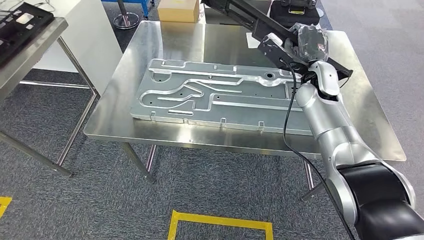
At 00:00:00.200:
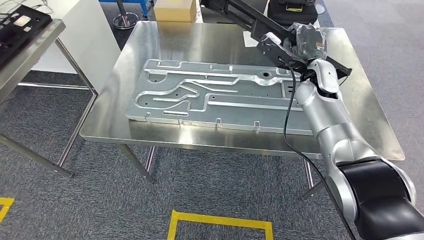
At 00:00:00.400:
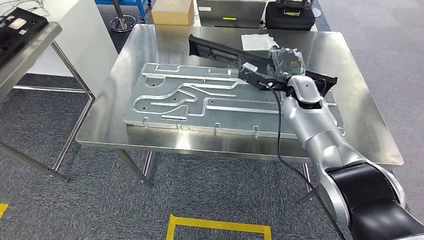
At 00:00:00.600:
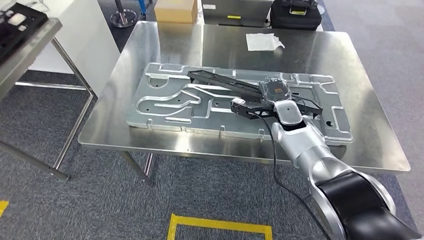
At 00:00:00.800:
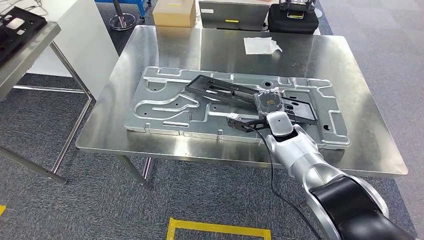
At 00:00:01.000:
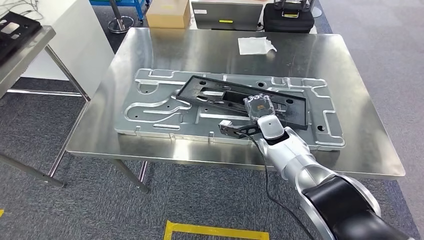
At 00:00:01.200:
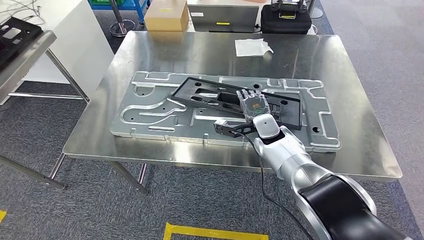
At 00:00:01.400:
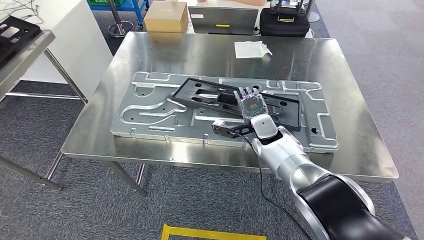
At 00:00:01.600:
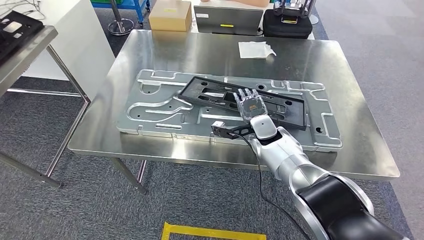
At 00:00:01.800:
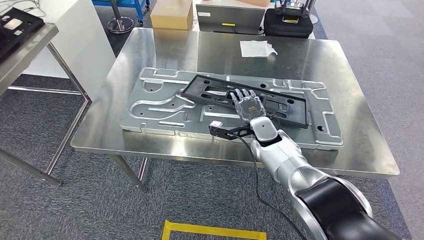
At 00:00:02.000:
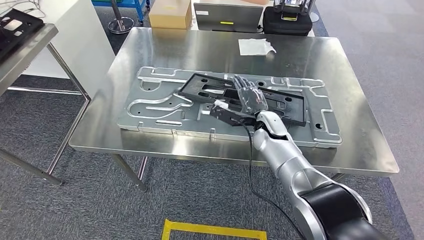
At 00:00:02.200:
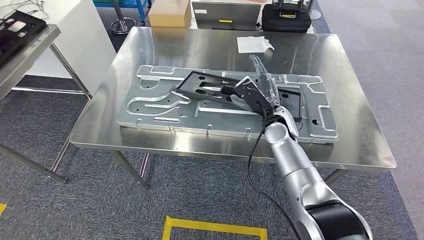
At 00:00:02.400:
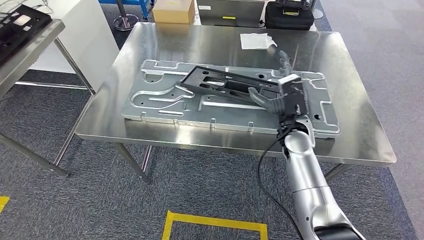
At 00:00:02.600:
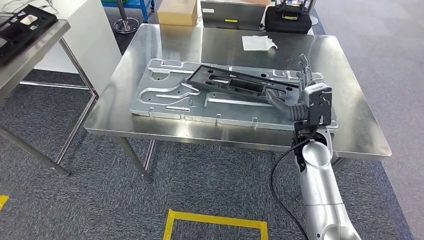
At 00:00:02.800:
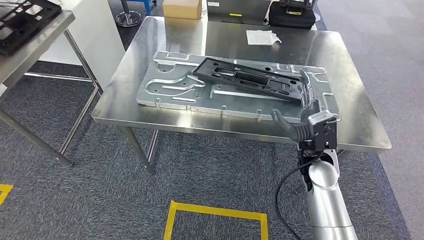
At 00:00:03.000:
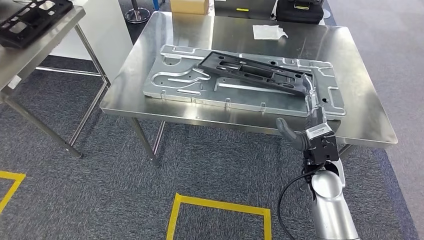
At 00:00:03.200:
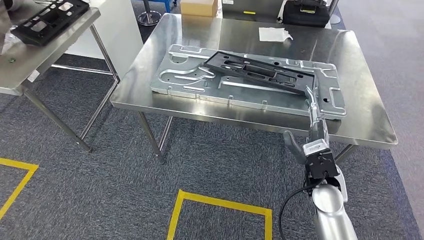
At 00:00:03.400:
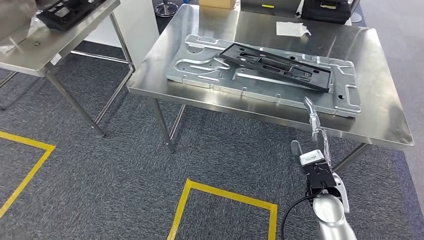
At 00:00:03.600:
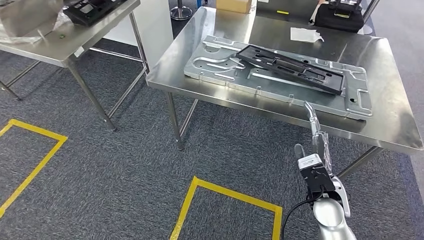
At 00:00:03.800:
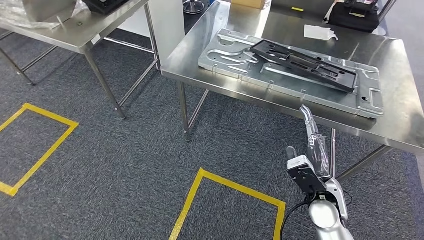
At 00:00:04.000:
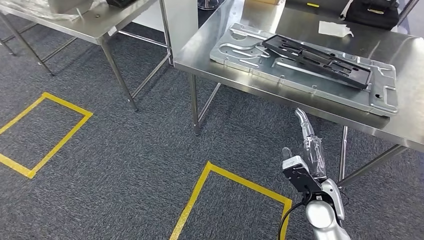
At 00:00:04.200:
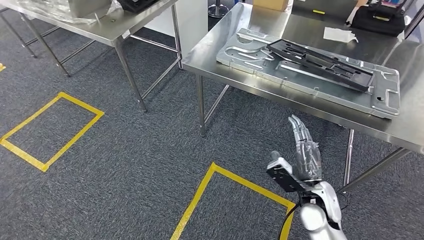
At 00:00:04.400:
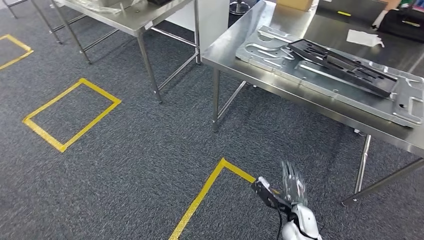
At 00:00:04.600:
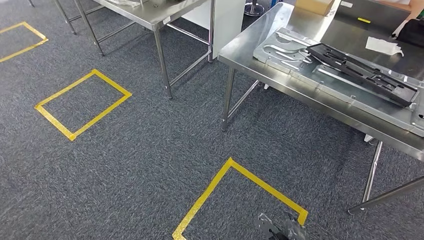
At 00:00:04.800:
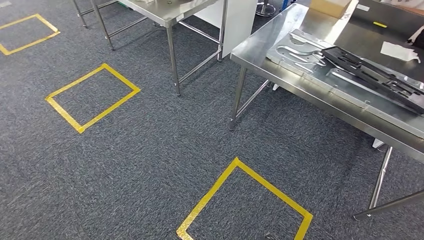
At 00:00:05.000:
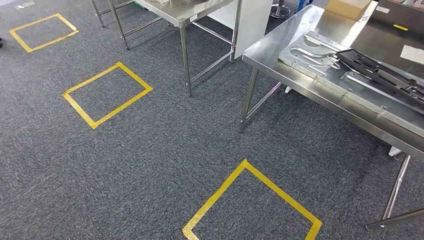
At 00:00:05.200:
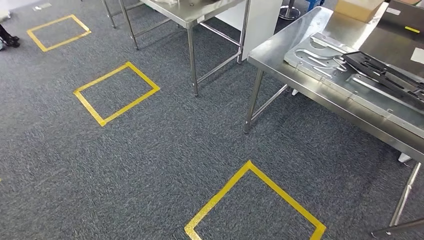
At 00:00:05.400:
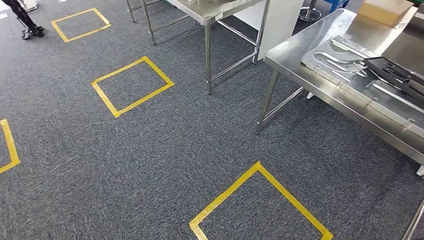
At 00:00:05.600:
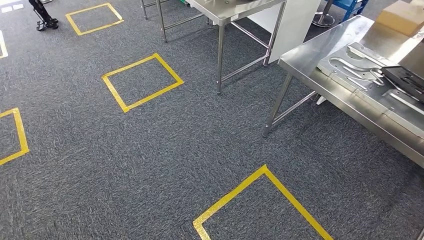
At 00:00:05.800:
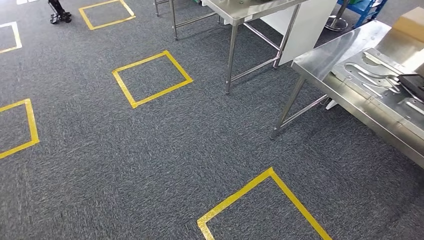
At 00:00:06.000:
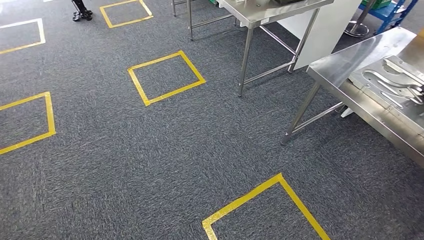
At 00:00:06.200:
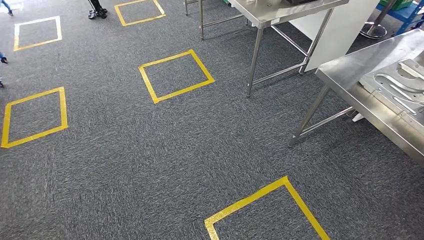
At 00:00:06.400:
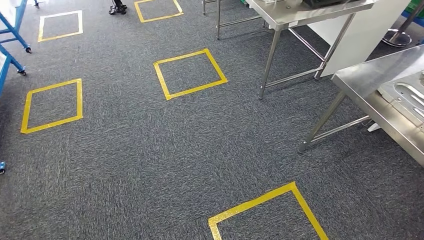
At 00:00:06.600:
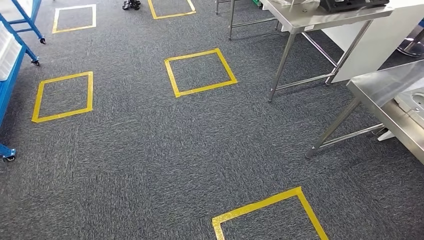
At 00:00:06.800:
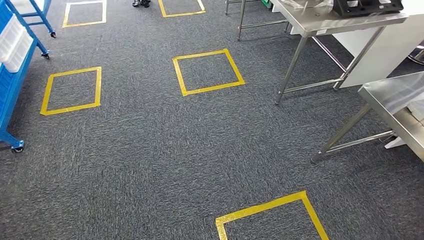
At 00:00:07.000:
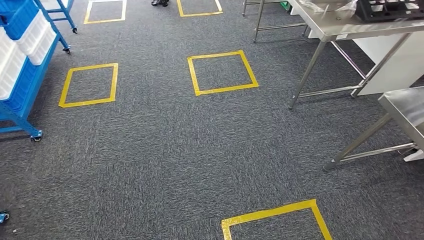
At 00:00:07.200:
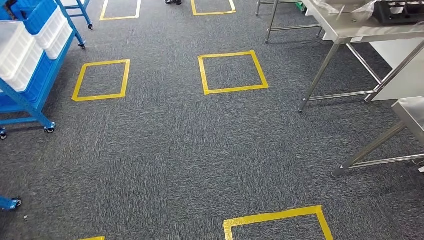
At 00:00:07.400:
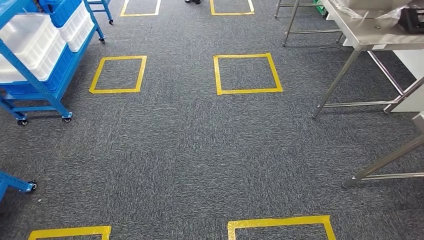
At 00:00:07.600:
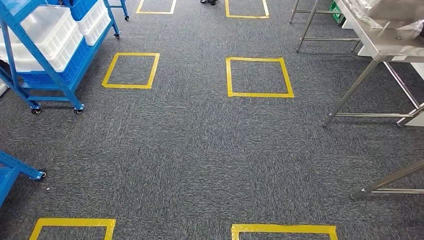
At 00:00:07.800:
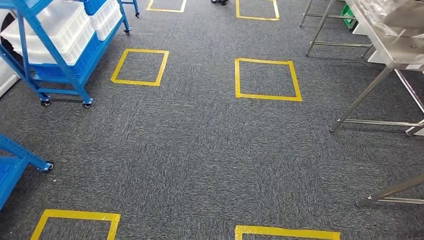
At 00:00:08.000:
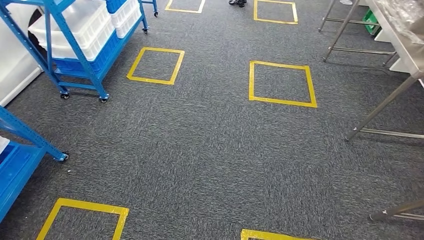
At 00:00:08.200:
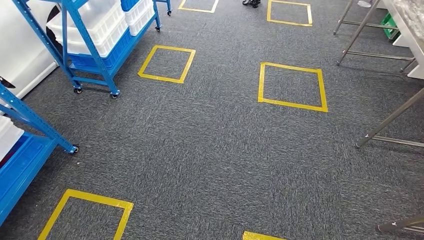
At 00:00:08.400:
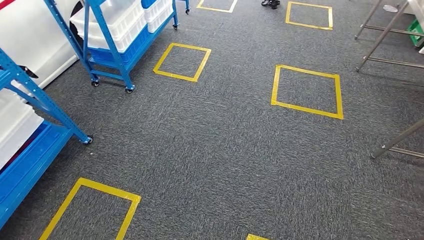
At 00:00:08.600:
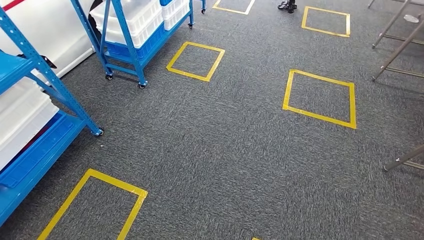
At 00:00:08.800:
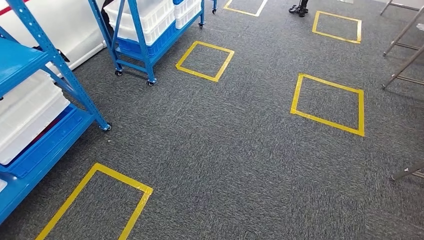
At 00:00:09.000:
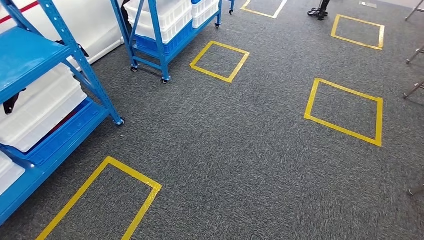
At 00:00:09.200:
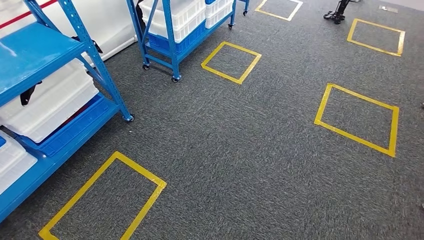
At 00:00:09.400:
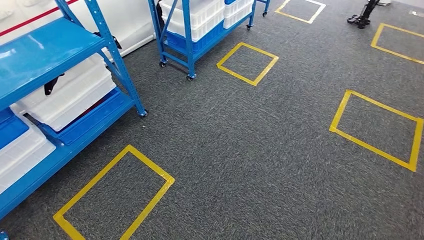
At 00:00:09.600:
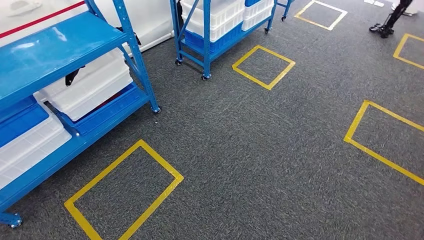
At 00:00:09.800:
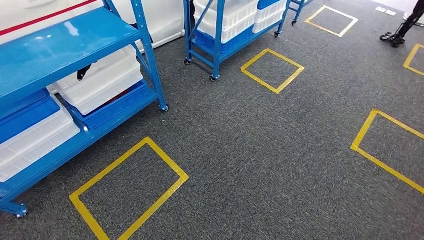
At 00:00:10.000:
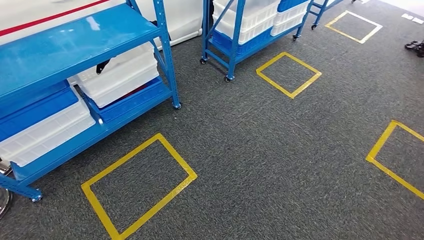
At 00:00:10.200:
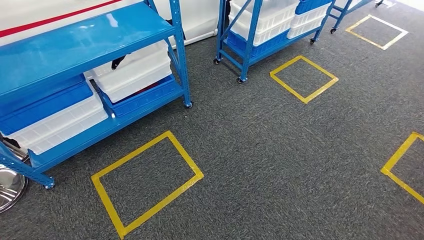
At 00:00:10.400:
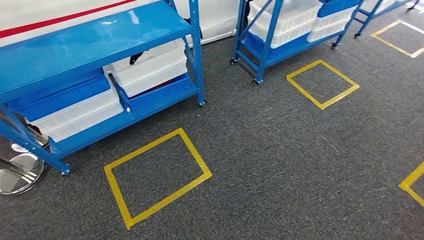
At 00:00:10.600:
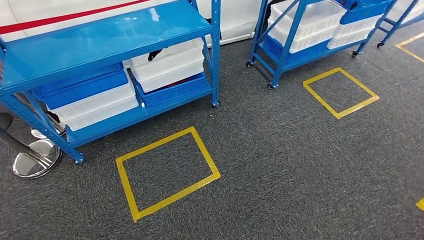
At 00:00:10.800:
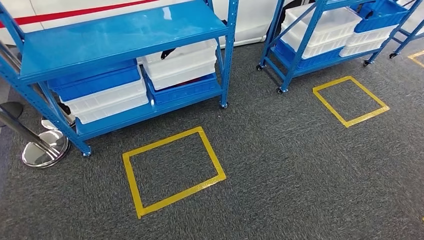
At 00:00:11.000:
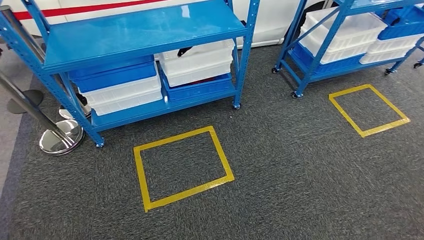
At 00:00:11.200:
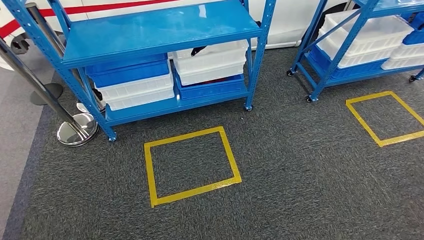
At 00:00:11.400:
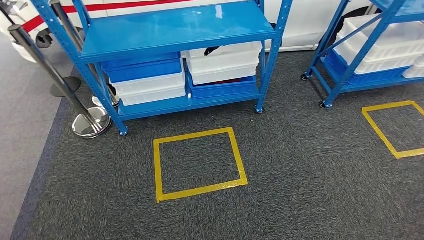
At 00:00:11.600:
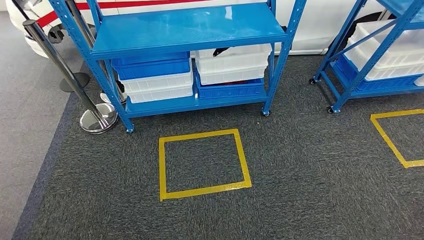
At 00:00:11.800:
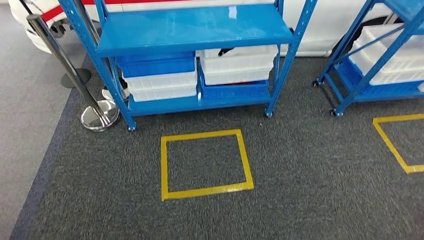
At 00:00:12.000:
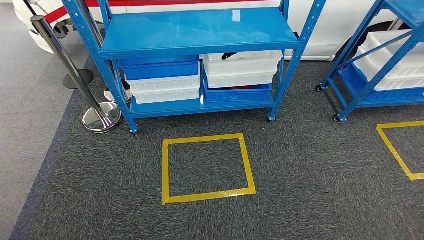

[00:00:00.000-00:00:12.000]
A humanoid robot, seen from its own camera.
Step, 00:00:00.800 to 00:00:04.400: Insert the large material into the corresponding hole on the workbench.

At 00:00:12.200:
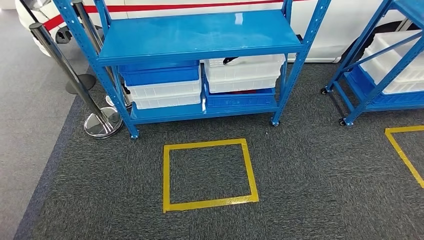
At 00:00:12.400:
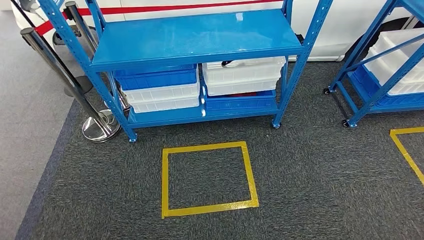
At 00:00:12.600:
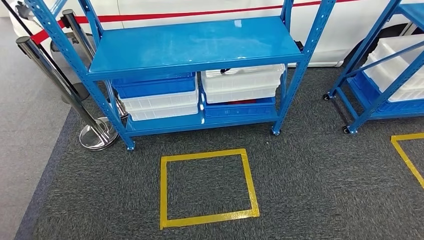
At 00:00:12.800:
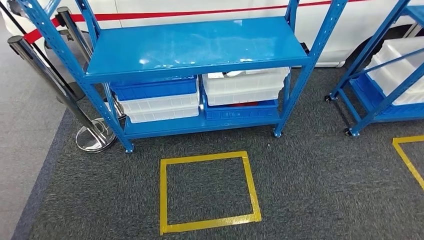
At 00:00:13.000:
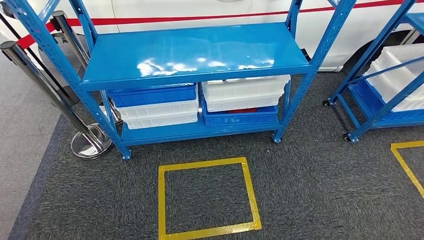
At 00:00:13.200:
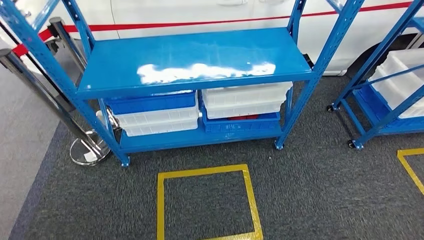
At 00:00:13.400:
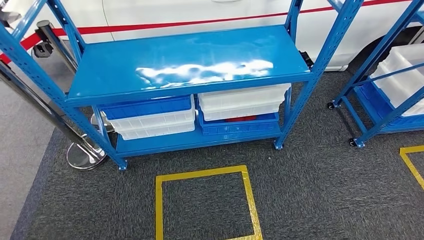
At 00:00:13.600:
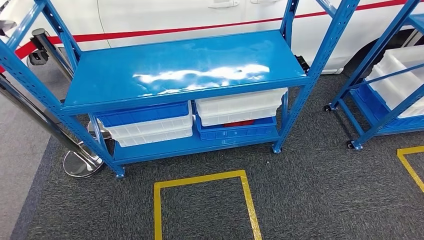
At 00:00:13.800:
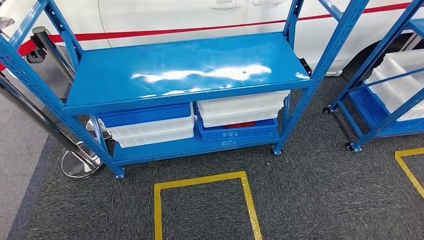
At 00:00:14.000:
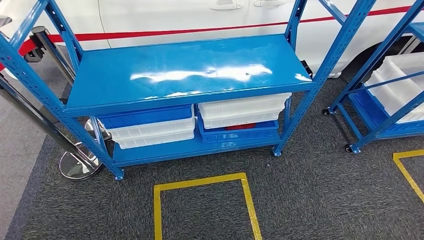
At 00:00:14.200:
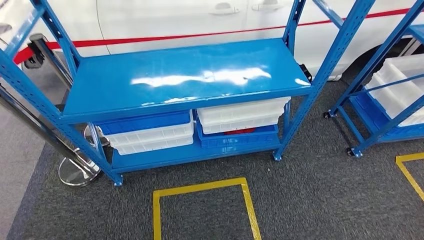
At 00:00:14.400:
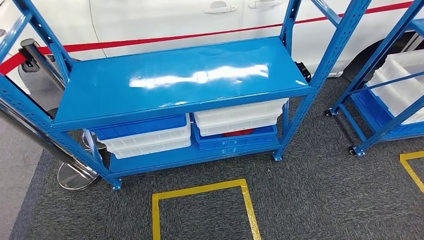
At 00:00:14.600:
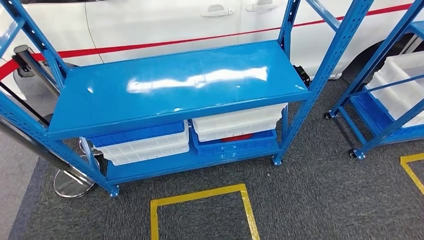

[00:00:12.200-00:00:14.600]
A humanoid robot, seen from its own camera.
Step, 00:00:12.200 to 00:00:14.600: Move to the initial position of the shelf.
